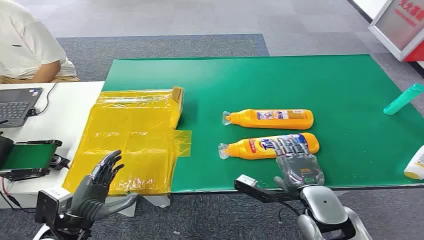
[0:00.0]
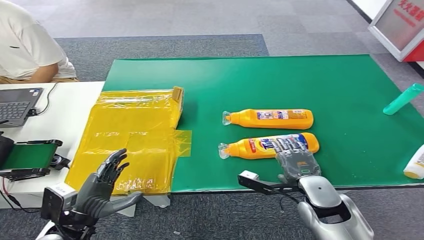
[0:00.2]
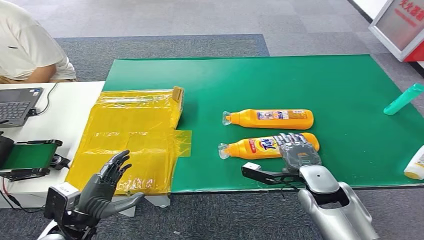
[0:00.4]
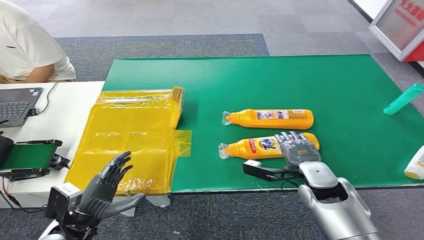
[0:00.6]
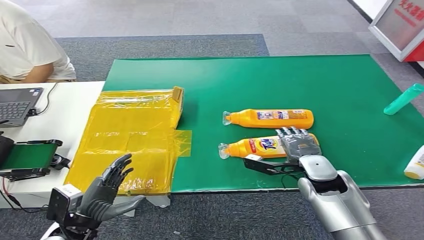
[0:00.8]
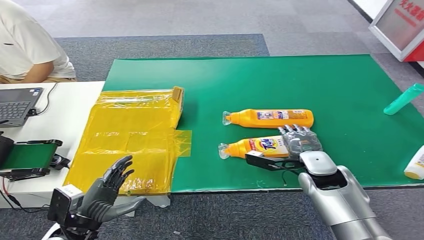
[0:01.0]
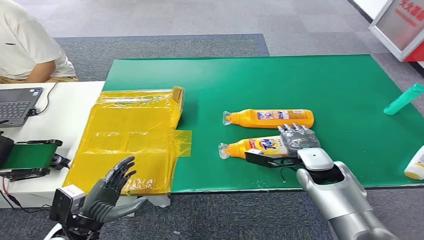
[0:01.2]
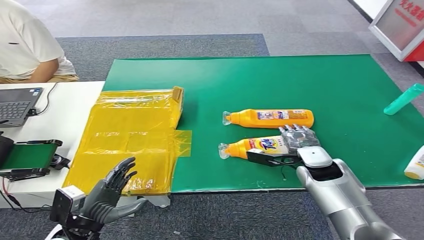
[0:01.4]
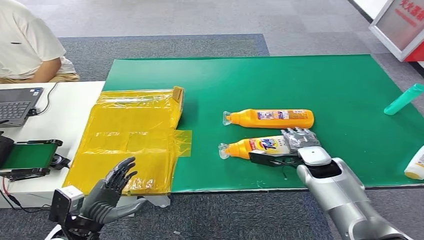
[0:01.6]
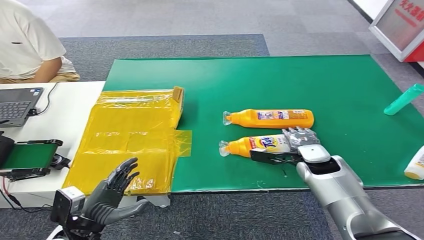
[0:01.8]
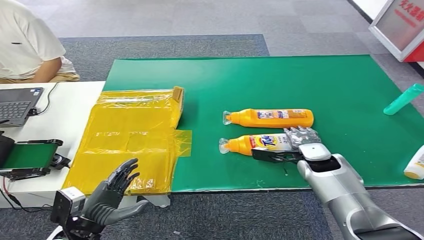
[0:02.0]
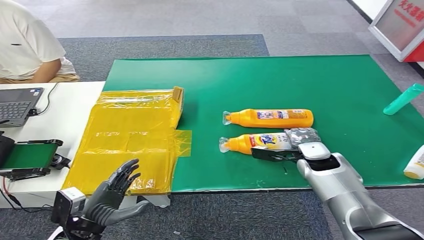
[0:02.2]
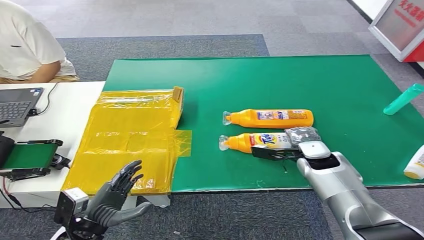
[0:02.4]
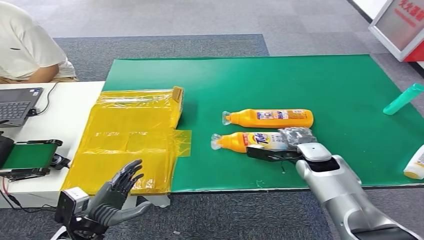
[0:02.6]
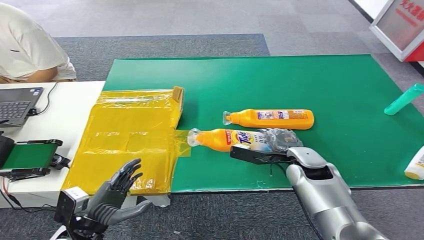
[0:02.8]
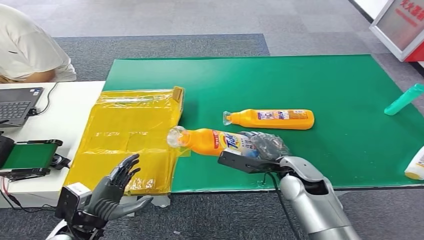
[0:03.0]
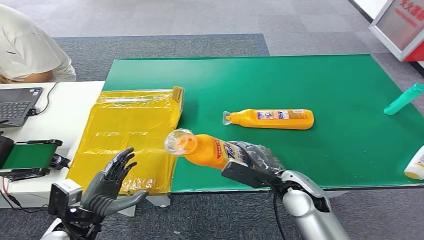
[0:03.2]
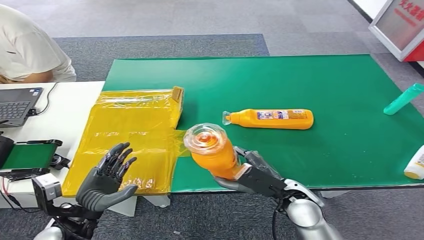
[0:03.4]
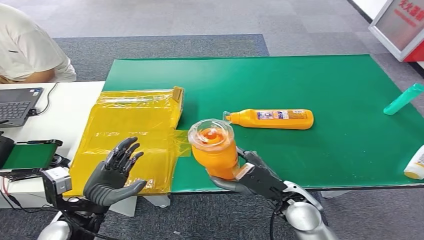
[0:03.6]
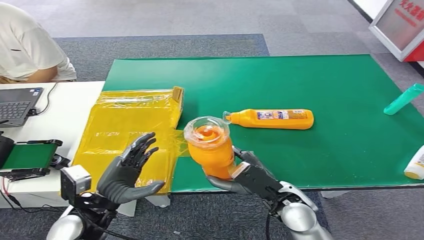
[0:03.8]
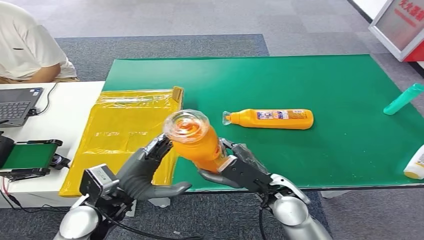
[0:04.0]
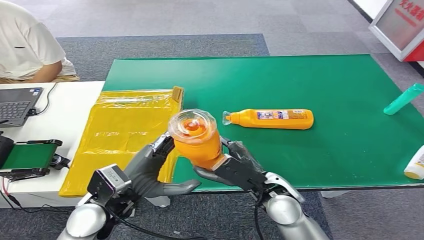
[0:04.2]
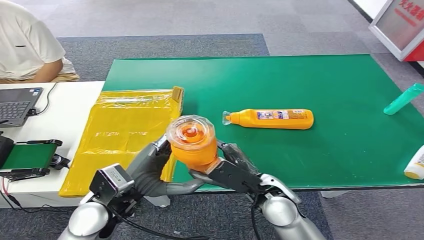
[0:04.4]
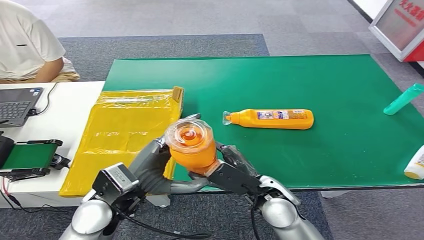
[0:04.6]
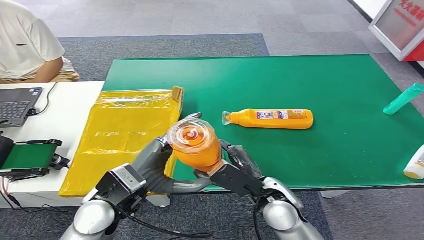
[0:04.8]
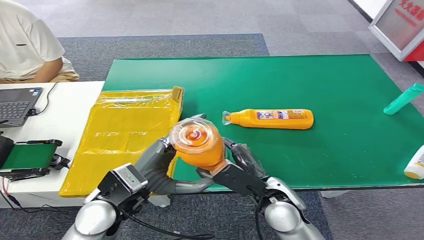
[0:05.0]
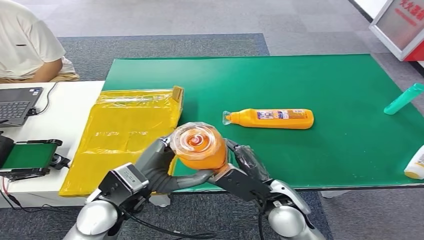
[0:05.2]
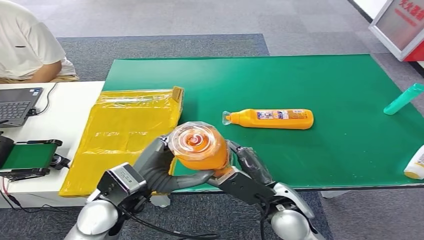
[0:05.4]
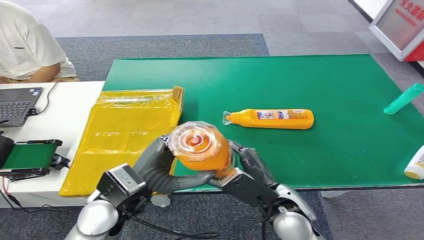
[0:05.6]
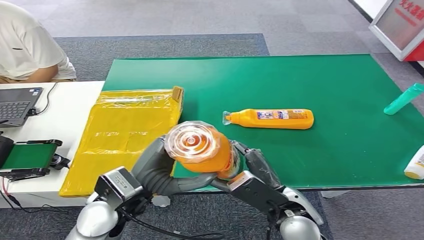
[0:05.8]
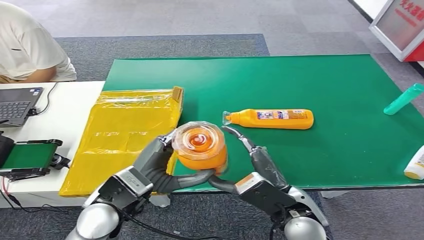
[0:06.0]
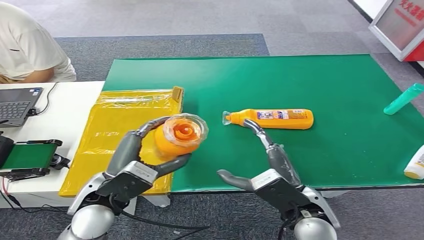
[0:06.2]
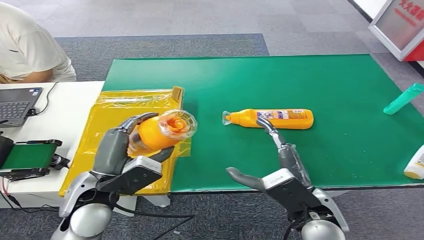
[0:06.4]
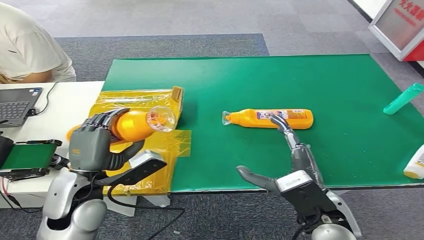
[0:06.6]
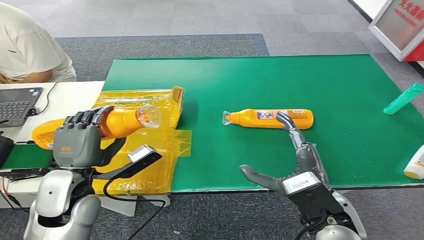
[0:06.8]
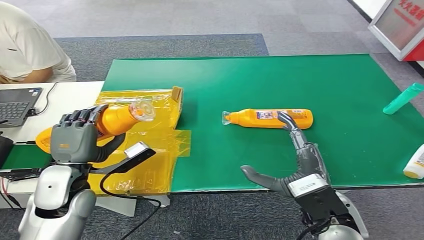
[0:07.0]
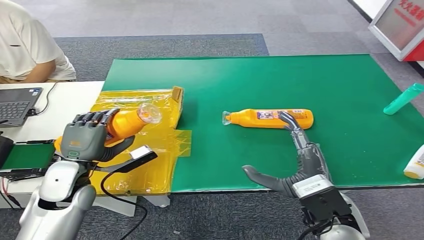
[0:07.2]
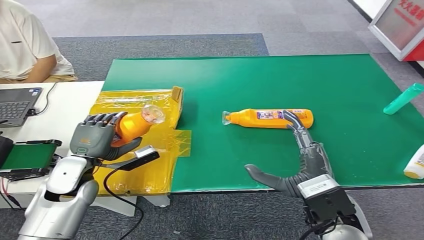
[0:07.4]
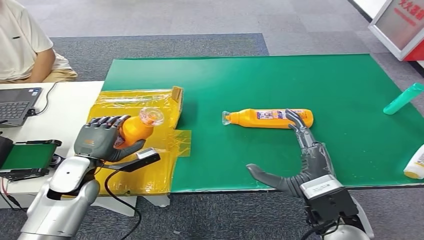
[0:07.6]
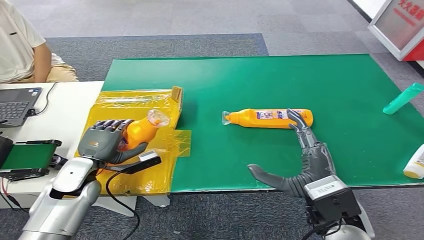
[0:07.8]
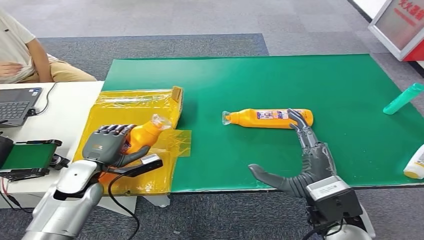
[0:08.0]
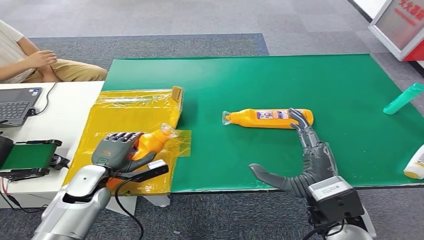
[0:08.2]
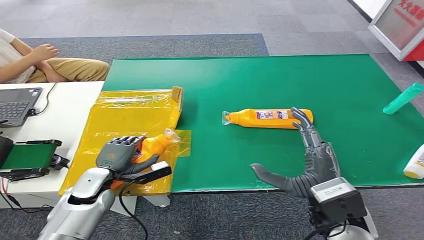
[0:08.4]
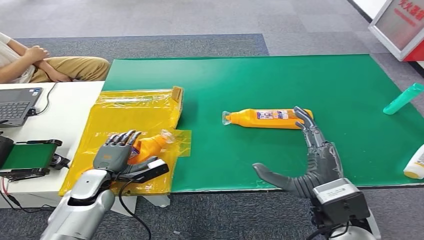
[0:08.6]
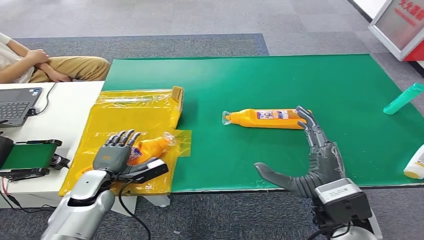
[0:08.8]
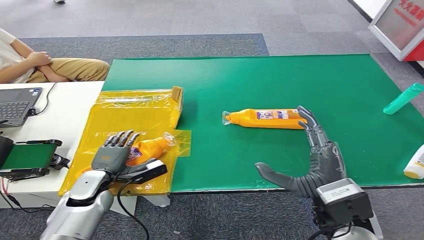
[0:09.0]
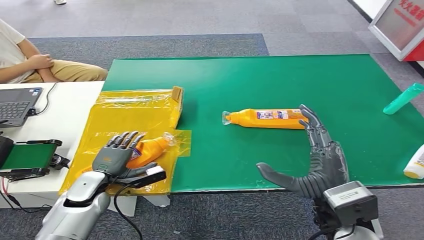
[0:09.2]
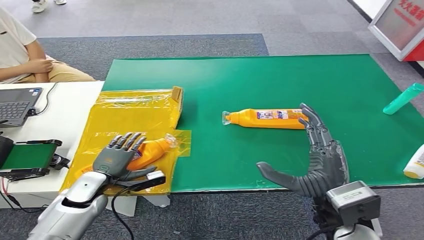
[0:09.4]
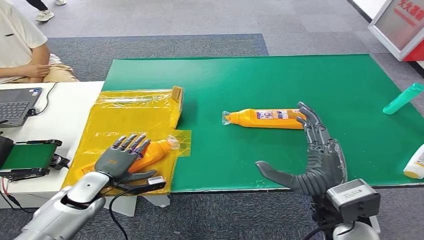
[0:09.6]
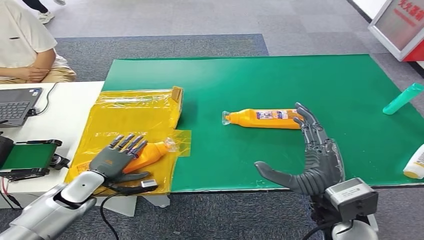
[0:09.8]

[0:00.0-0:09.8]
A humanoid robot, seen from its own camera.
Step, 0:00.0 to 0:04.8: Pick up the bottle from the table.
0:02.8 to 0:04.2: The right hand is displaced backward and to the left by approximately 15 cm; the left hand heads upward, to the right and forward, covering some 15 cm.
0:04.2 to 0:05.6: The hands make only small movements.
0:07.0 to 0:08.4: The left hand goes approximately 10 cm downward.
0:08.4 to 0:09.8: The left hand moves approximately 5 cm.

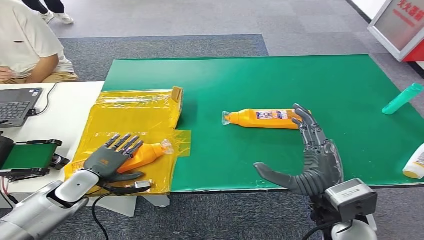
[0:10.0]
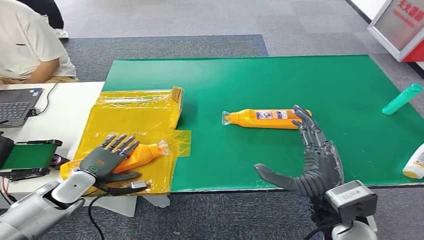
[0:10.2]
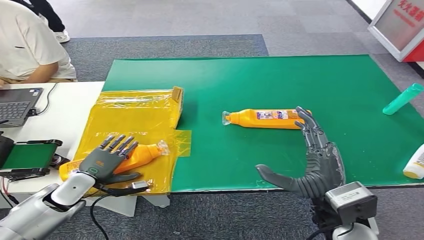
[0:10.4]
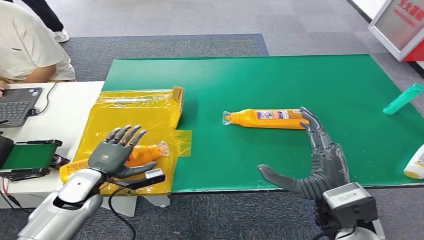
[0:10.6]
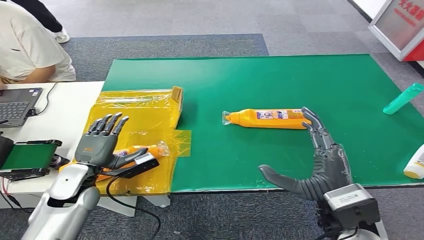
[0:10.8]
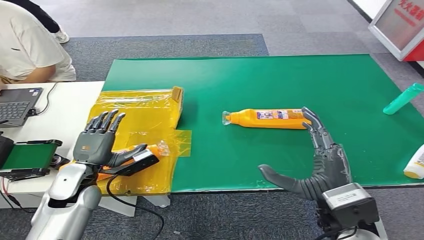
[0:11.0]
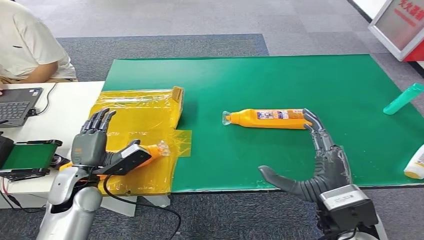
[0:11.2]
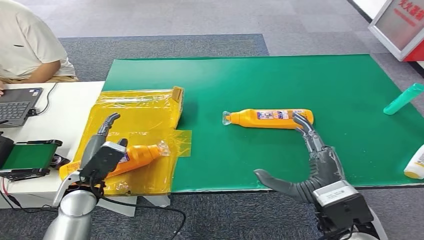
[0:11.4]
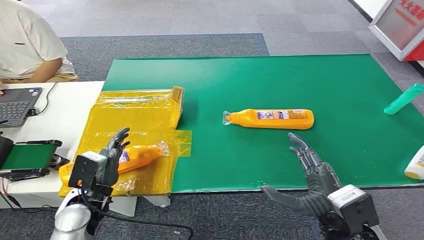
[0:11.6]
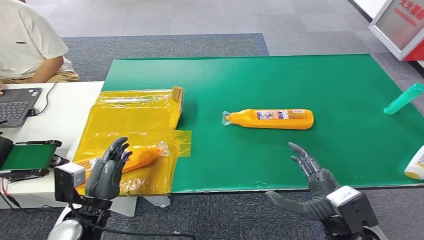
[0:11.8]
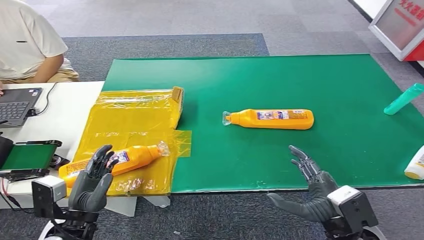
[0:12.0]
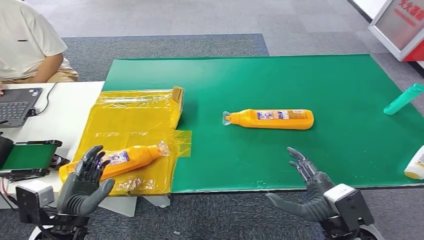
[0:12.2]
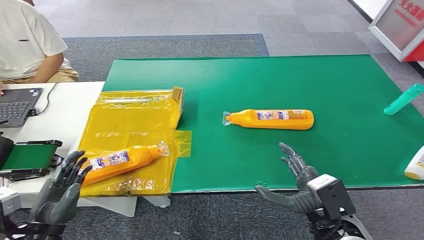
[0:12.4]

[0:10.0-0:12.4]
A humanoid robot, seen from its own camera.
Step, 0:10.0 to 0:12.4: Turn the bottle to the front side.
0:10.0 to 0:11.2: The left hand travels upward and to the right by some 10 cm.
0:11.2 to 0:12.4: The right hand goes approximately 10 cm downward. The left hand shifts roughly 15 cm backward.
